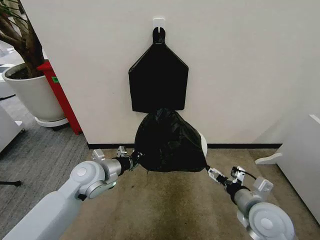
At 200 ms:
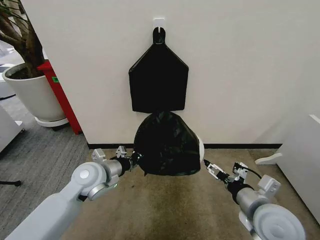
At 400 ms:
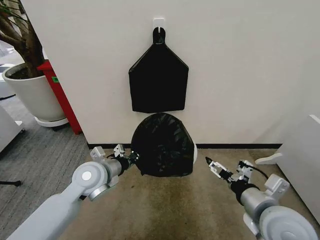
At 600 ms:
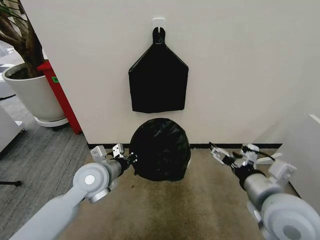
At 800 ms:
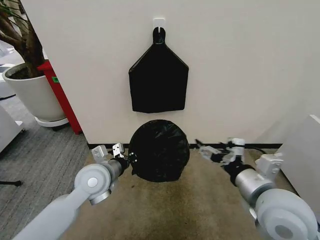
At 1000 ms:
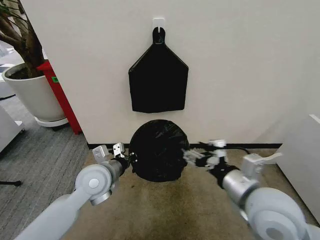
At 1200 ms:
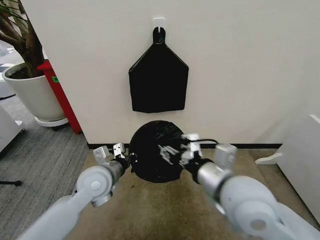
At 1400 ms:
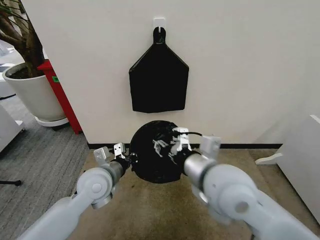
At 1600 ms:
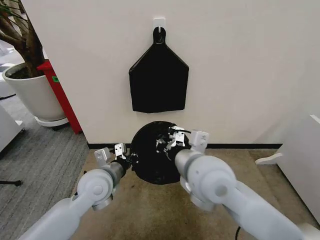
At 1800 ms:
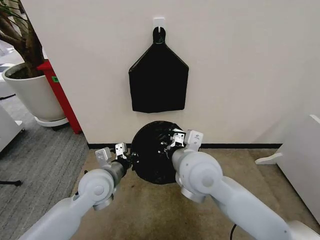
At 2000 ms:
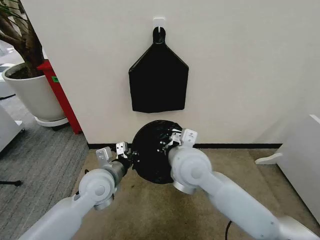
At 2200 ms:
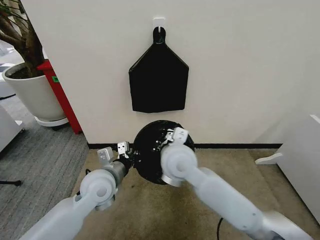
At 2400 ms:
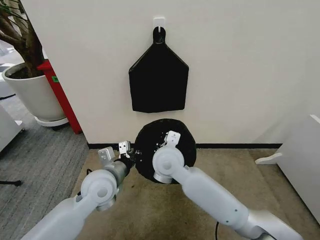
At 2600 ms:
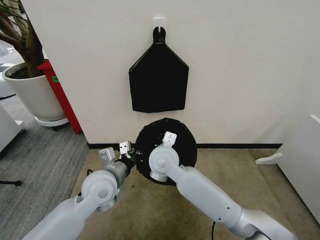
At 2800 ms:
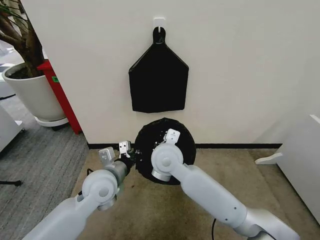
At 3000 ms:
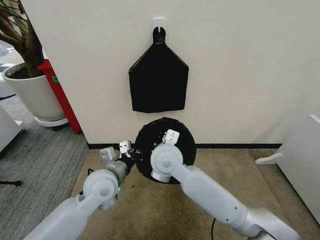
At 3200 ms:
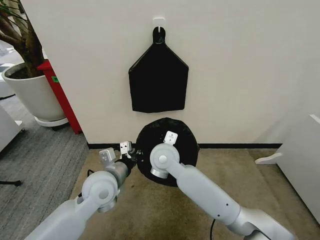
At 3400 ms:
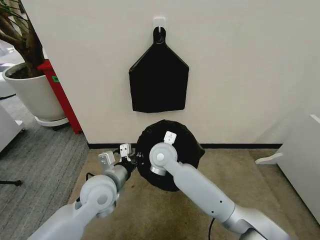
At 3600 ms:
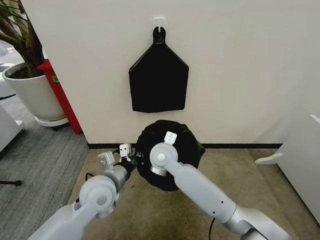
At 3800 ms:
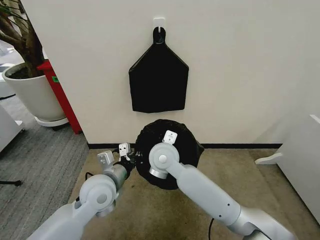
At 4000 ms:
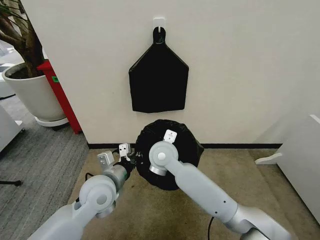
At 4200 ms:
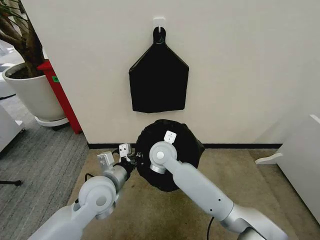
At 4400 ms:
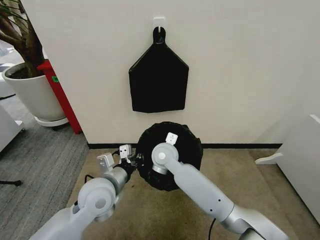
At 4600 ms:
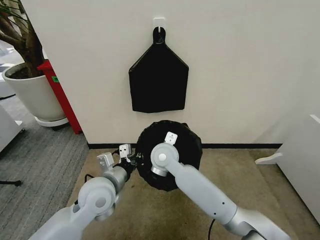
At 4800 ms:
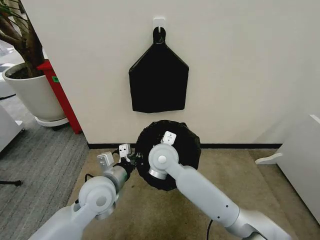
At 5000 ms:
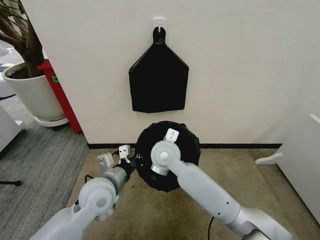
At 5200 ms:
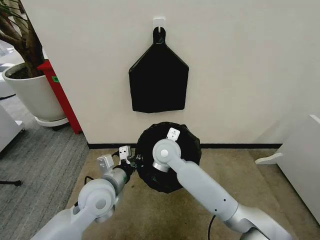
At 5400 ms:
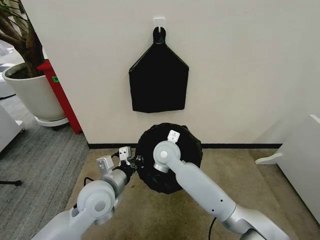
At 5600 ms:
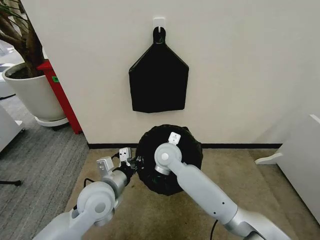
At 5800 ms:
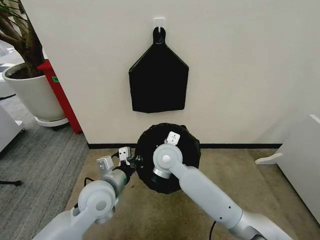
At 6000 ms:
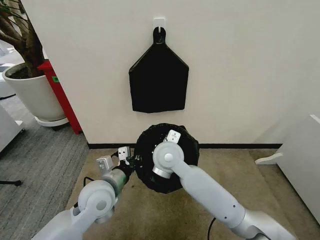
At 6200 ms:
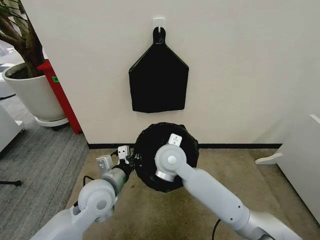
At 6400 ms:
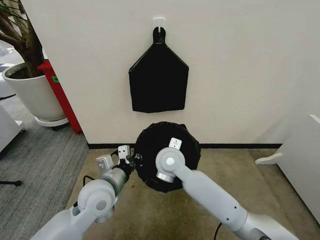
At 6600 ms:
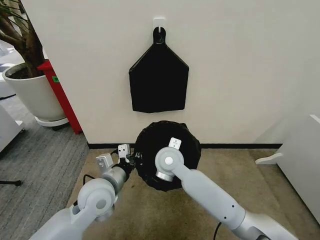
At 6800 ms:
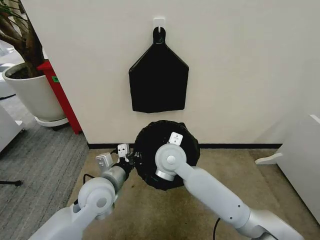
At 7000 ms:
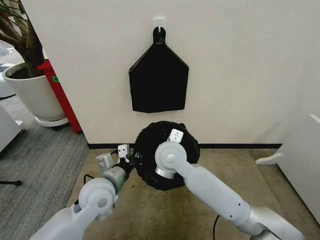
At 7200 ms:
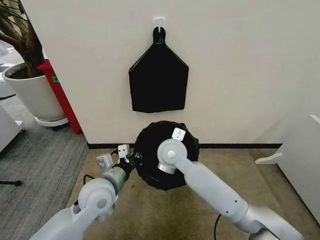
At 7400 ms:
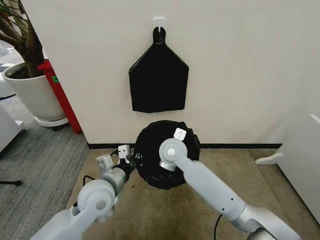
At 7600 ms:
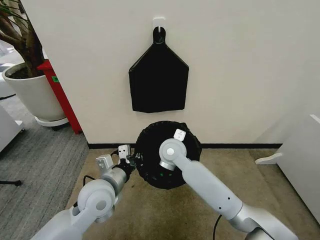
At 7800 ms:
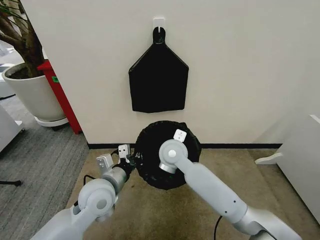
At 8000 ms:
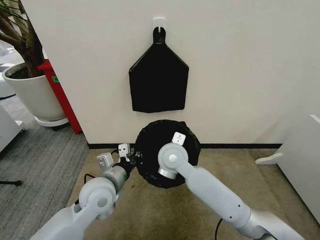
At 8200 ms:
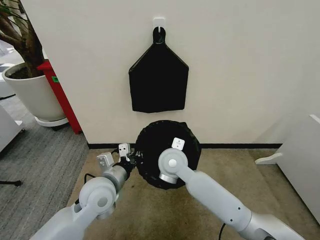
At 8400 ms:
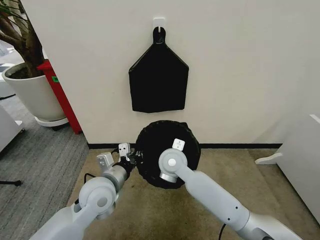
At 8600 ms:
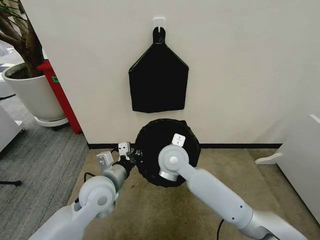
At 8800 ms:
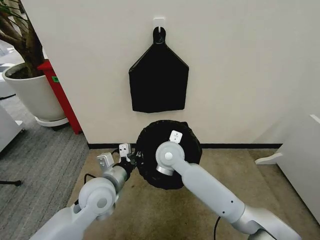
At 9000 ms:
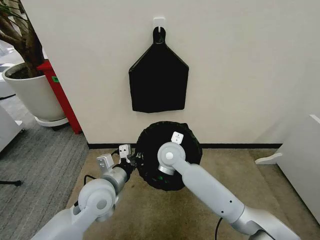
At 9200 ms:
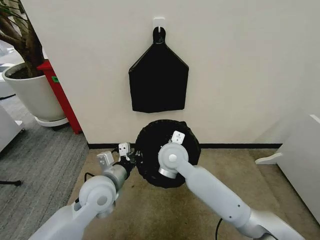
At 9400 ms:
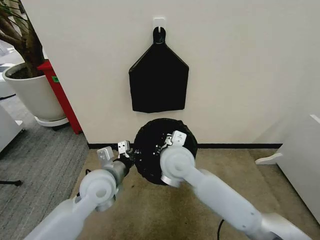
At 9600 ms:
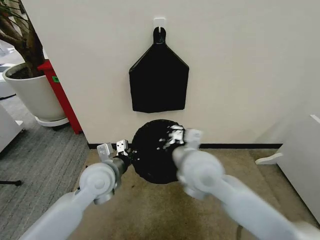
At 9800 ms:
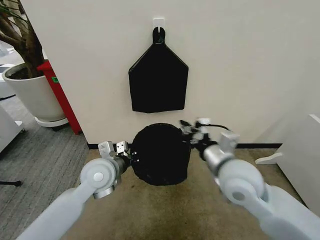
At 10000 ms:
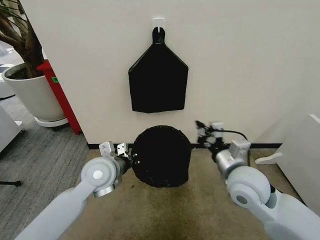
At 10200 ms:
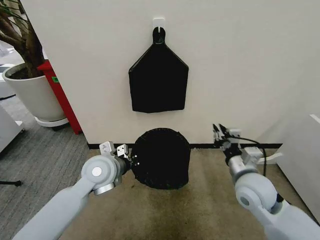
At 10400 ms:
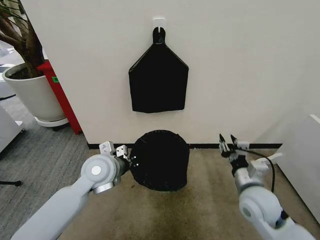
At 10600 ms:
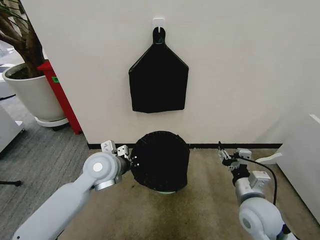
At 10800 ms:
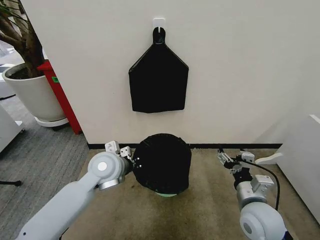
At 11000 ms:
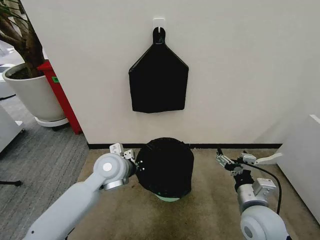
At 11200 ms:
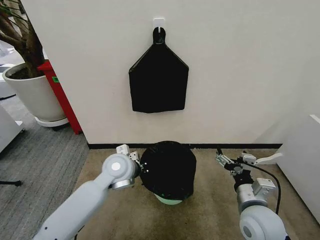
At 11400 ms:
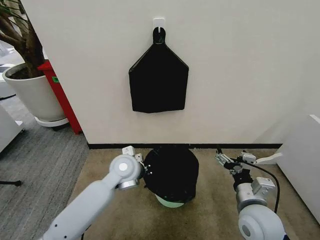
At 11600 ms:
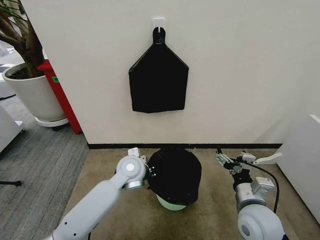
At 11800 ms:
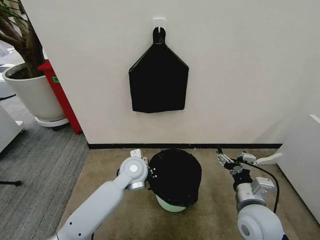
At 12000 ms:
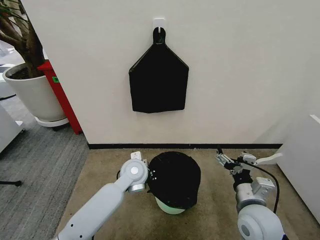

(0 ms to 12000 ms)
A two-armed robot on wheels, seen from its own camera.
Task of the whole recording: Place the garbage bag over the trash bin.
0 ms - 1600 ms: The right gripper heads to the left and upward, covering some 25 cm, and closes.
1600 ms - 3000 ms: The right gripper moves forward, to the left and downward, roughly 15 cm.
3000 ms - 4400 ms: The right gripper goes some 10 cm downward and forward.
4400 ms - 6000 ms: The right gripper goes up and down, about 5 cm each way, reversing 2 times.
6000 ms - 7600 ms: The right gripper changes place by some 5 cm.
7600 ms - 9000 ms: There are only small adjustments of the grippers.
9000 ms - 10400 ms: The left gripper moves forward, roughly 5 cm; the right gripper heads to the right and backward, covering roughly 30 cm, and opens up.
10400 ms - 12000 ms: The right gripper moves approximately 5 cm, and opens its fingers, while the left gripper shifts approximately 10 cm to the right and downward.

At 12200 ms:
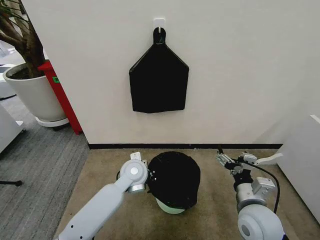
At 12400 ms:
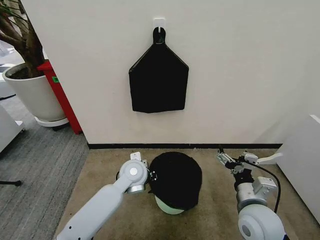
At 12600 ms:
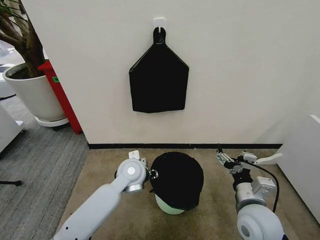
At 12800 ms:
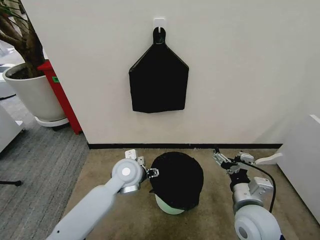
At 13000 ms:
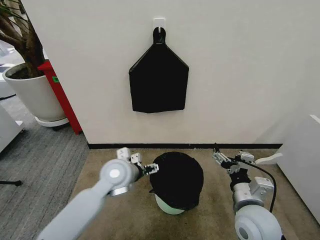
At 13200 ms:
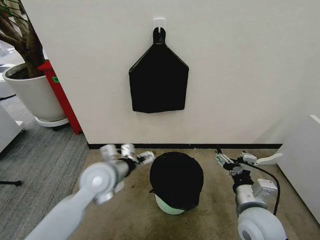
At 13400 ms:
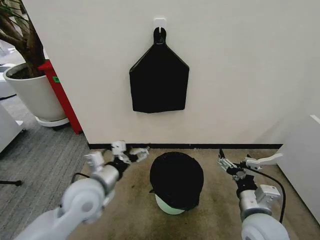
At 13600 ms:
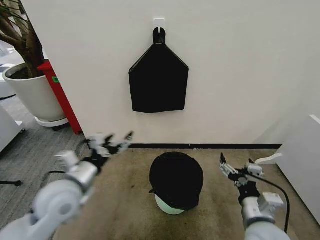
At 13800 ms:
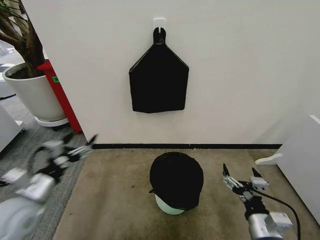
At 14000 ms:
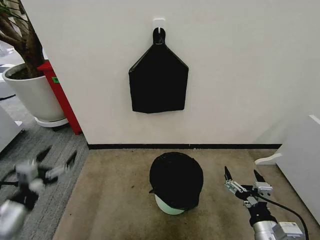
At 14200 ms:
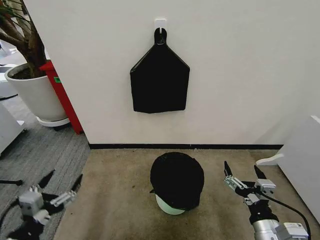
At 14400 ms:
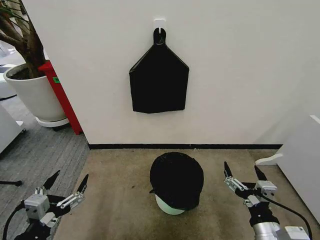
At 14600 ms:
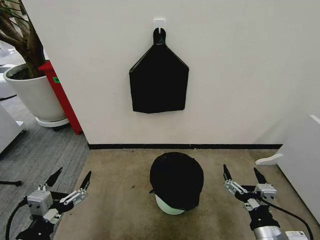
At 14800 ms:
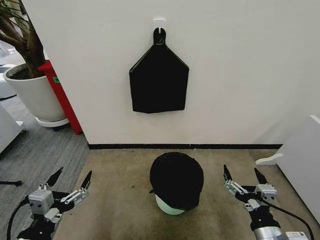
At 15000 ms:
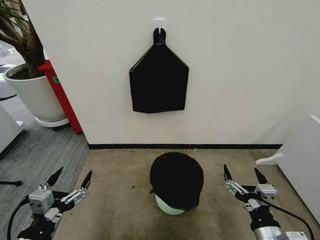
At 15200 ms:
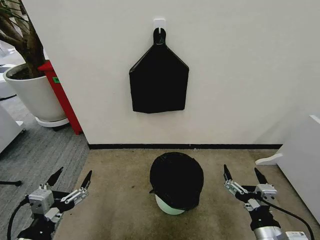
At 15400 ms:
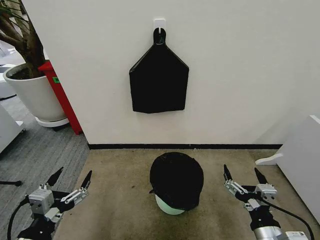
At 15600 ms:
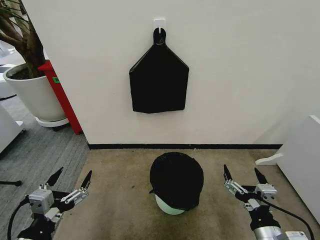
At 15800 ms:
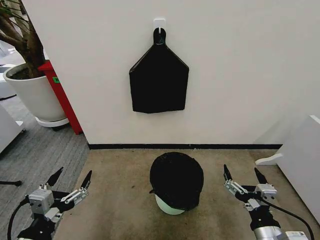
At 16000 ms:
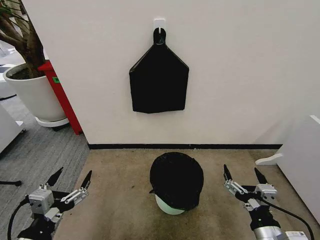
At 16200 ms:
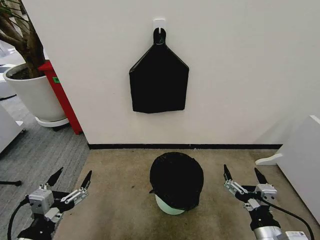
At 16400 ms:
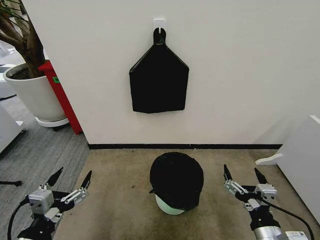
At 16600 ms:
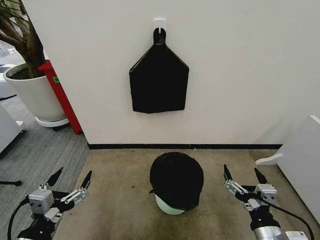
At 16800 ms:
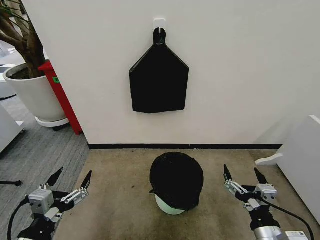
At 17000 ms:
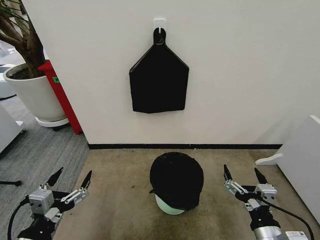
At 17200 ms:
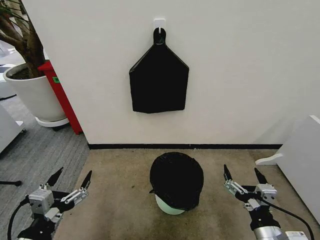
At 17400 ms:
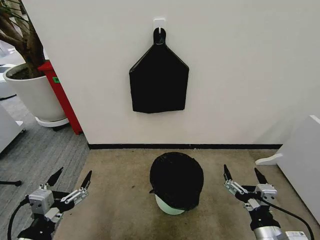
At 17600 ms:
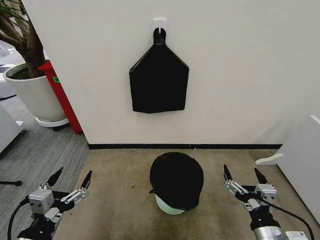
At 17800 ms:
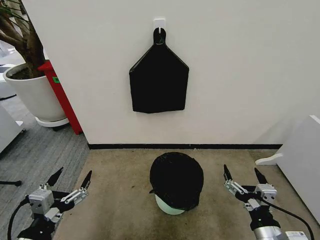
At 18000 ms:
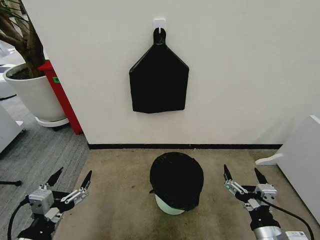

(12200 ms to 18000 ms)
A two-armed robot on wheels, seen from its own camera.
Task of the whole recording: Place the garbage bag over the trash bin.
12200 ms - 13600 ms: The right gripper goes roughly 5 cm backward. Meanwhile the left gripper travels to the left, backward and upward by roughly 25 cm, and opens.
13600 ms - 15000 ms: The right gripper travels backward by roughly 5 cm; the left gripper heads backward, covering some 15 cm.
15000 ms - 18000 ms: Both grippers stay put.
